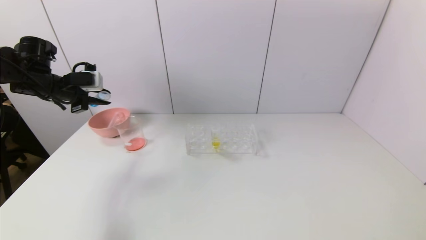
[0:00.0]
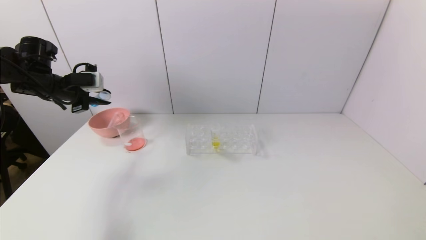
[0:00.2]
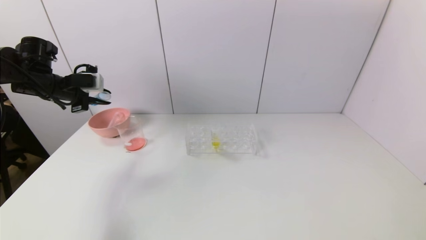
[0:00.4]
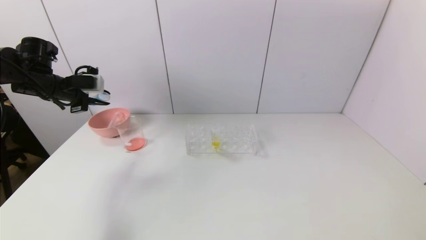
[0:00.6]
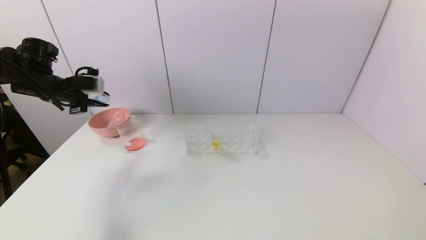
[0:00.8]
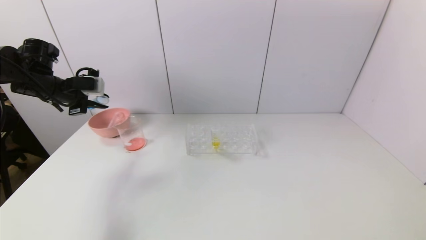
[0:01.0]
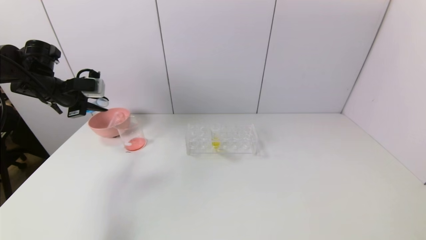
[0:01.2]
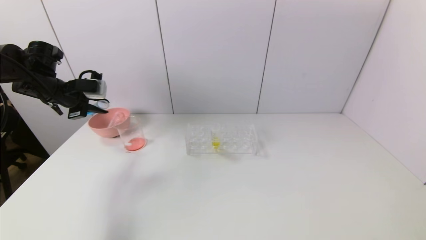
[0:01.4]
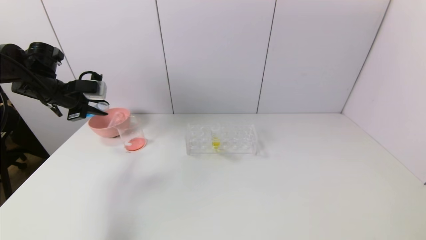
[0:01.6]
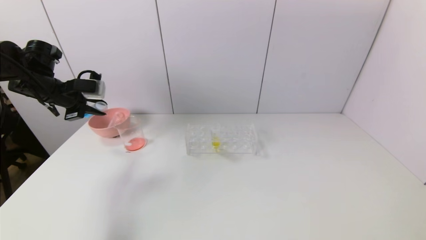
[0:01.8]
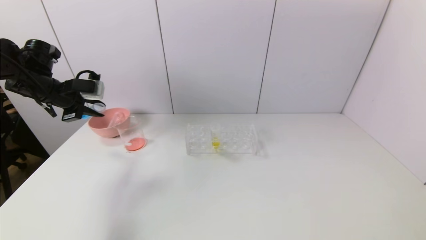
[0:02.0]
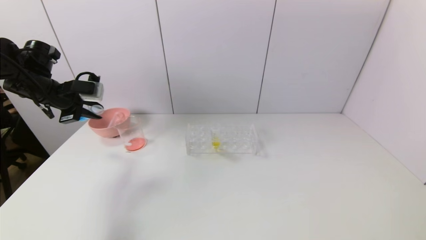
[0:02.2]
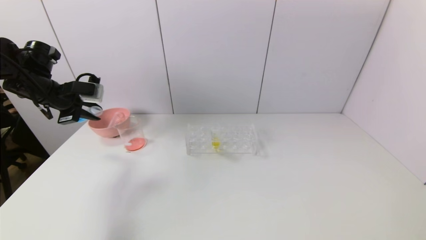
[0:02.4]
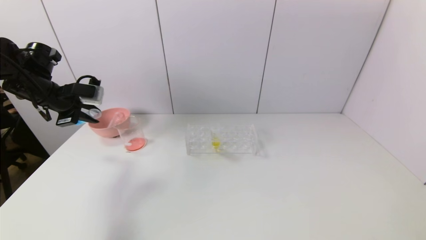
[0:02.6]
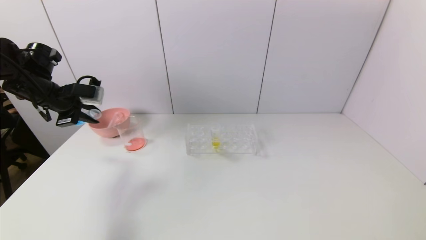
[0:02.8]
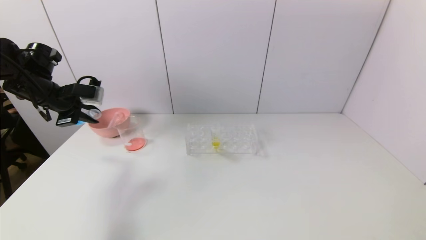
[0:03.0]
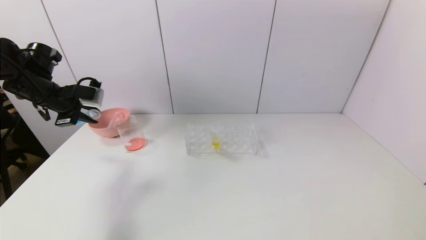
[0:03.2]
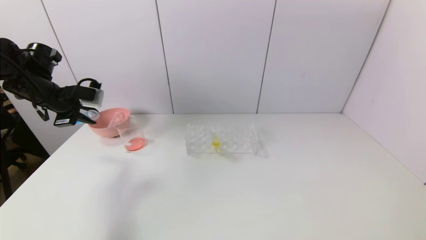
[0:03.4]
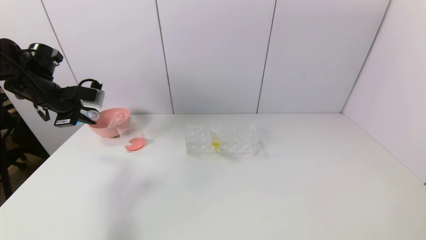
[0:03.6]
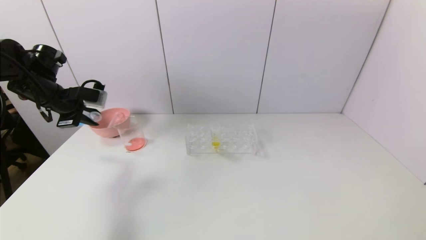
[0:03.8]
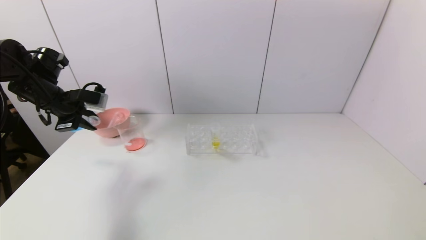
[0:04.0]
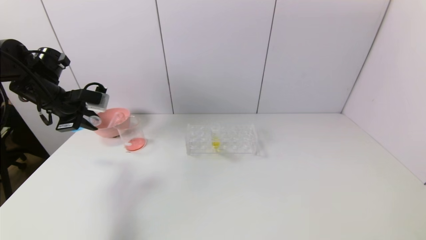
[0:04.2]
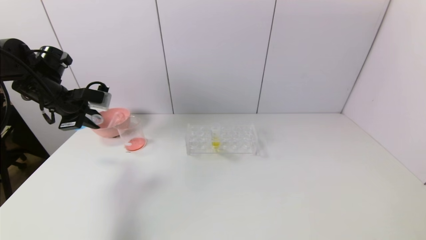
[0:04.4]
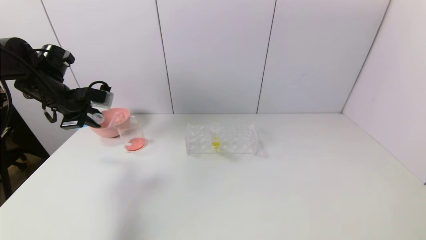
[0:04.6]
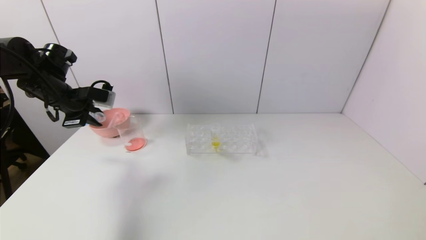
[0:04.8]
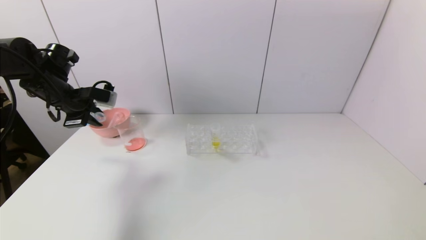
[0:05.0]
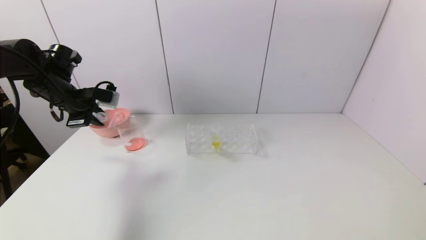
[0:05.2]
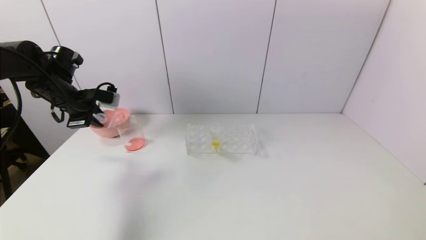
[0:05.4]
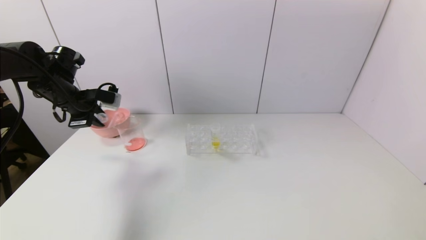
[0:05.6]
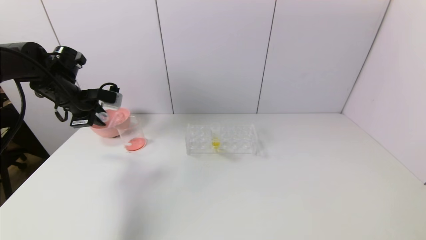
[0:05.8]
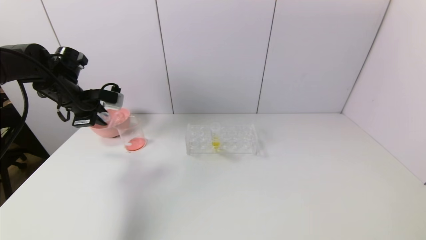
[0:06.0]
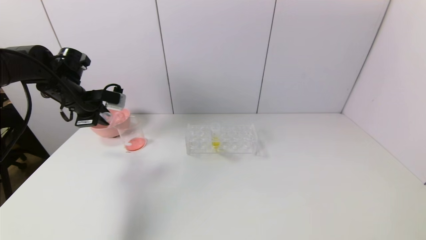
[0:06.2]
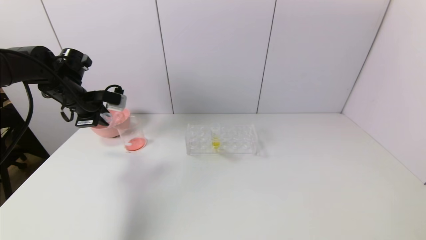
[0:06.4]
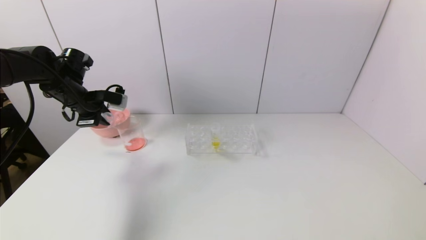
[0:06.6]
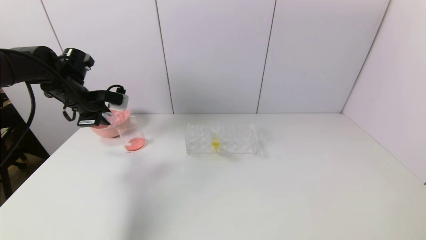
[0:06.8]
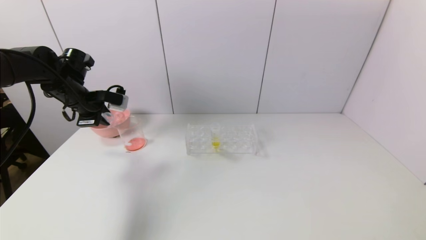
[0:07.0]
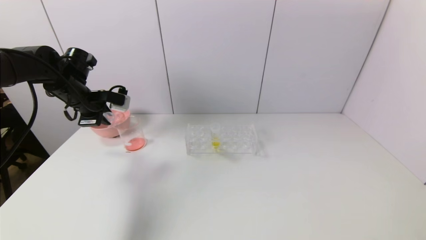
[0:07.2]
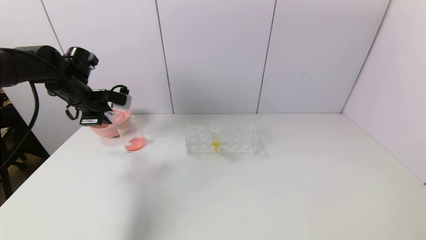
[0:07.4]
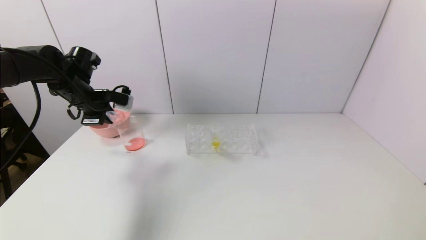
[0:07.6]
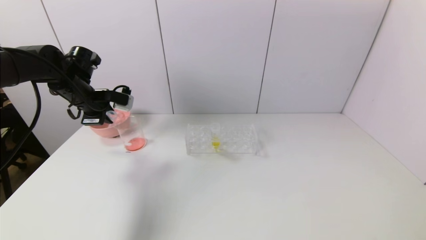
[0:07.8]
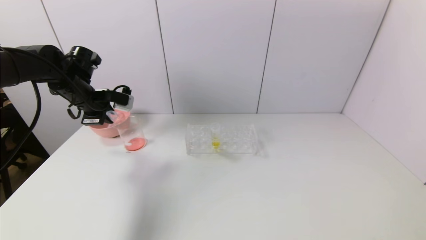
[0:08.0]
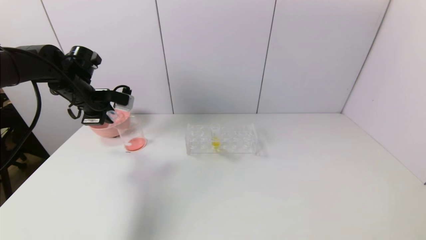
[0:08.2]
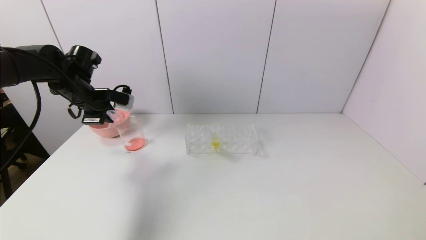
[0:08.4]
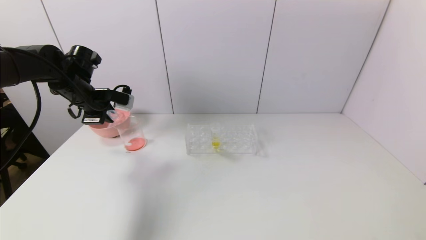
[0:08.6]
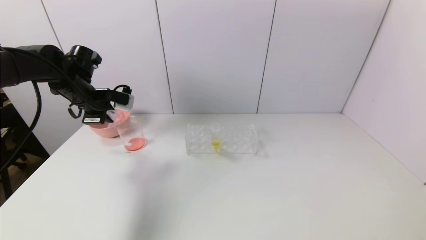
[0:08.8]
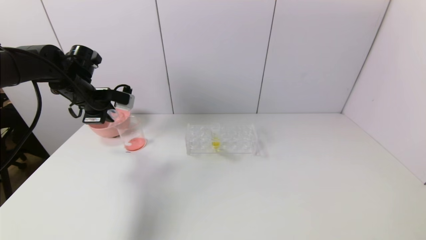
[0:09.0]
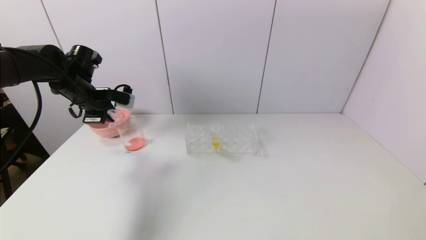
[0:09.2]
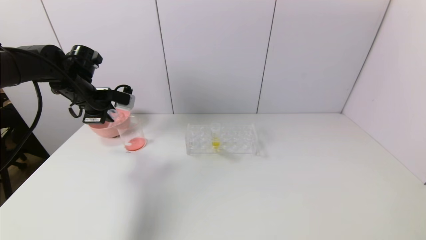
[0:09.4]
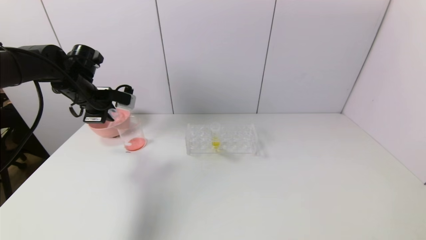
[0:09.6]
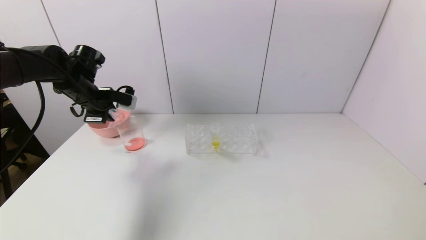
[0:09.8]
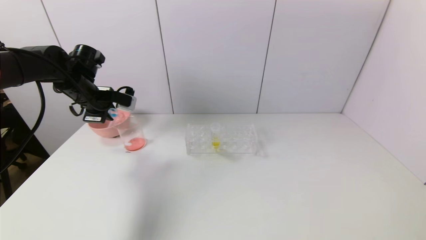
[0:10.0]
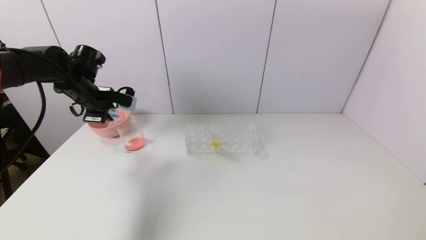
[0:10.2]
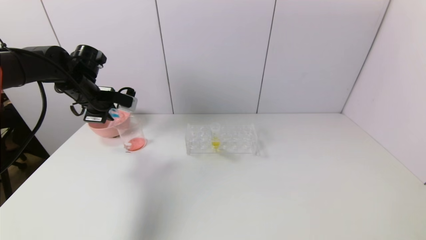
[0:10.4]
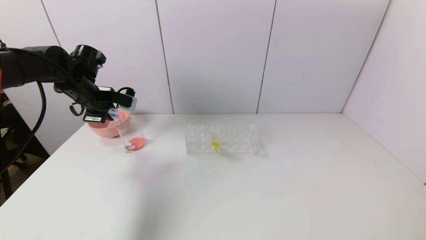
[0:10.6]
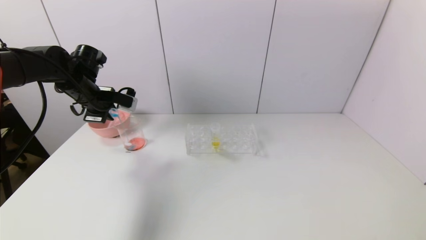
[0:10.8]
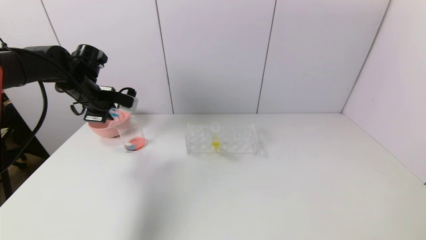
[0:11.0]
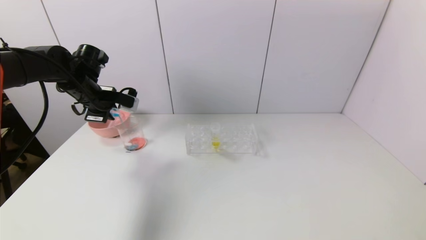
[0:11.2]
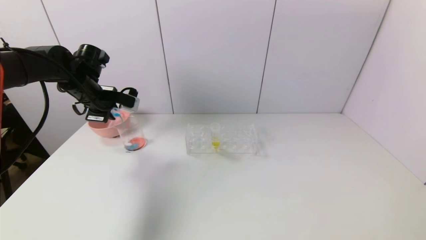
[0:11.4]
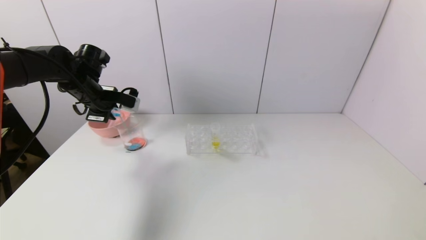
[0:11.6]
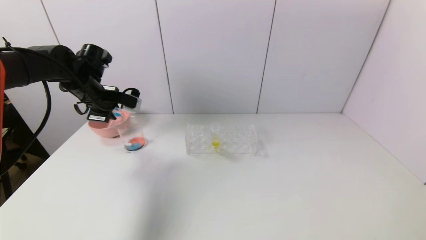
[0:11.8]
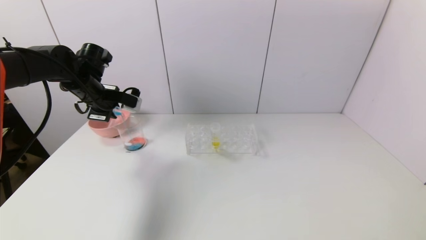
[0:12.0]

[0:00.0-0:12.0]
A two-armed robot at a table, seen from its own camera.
Task of the whole recording: pick up the test tube with red pigment and the test tube with blue pigment by grippers and pour them into the container.
0:00.0 to 0:03.0: The grippers stay close to where they were, moving slightly.
0:03.0 to 0:06.0: The grippers move only a little.
0:06.0 to 0:07.6: The grippers make only small movements.
0:07.6 to 0:09.0: The two grippers keep their place.
0:09.0 to 0:12.0: There are only small adjustments of the grippers.

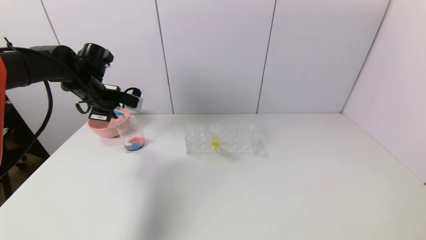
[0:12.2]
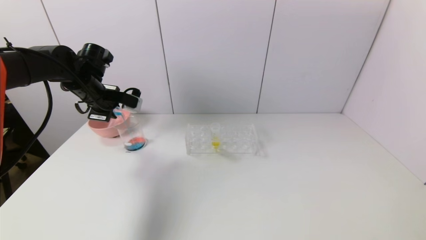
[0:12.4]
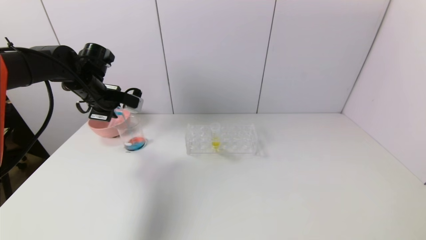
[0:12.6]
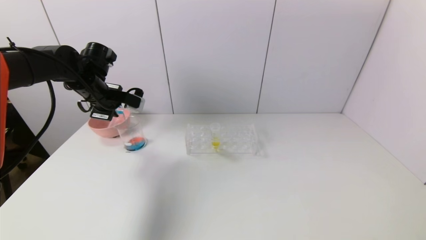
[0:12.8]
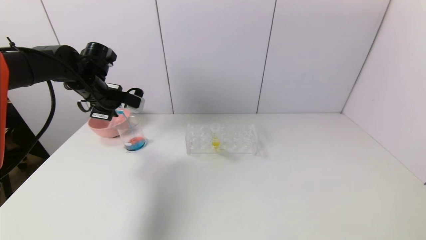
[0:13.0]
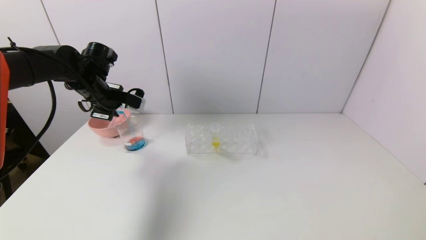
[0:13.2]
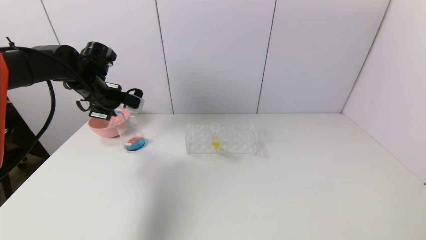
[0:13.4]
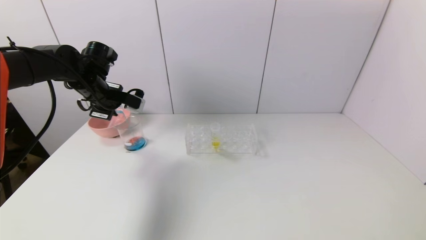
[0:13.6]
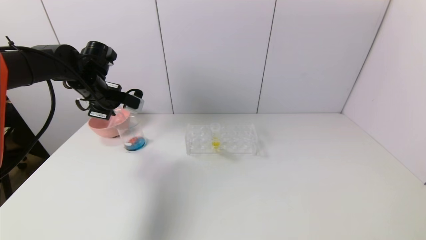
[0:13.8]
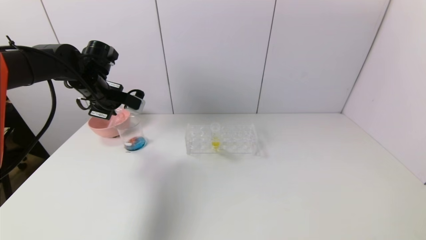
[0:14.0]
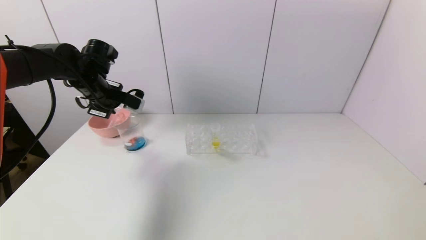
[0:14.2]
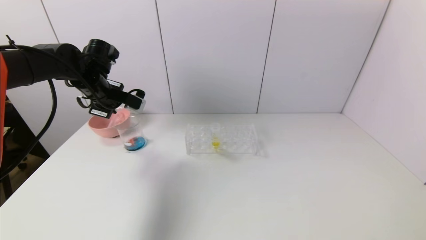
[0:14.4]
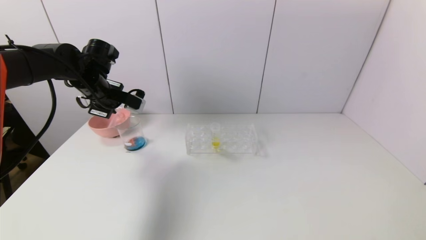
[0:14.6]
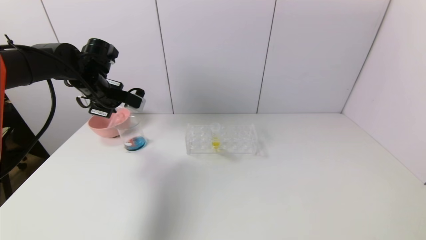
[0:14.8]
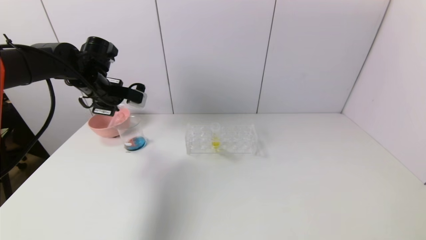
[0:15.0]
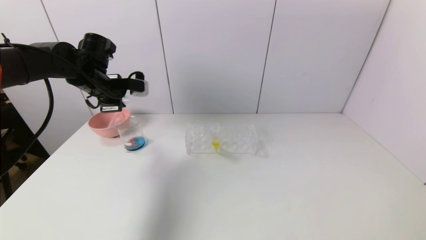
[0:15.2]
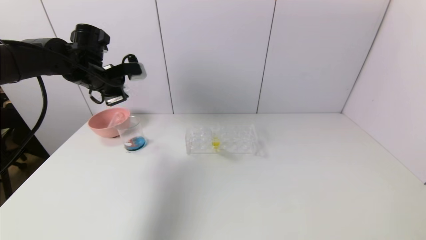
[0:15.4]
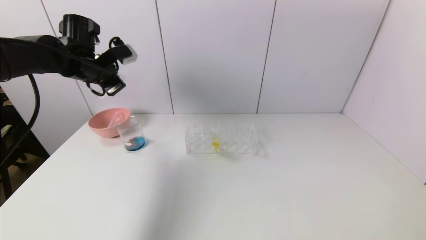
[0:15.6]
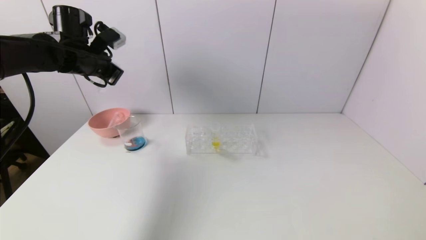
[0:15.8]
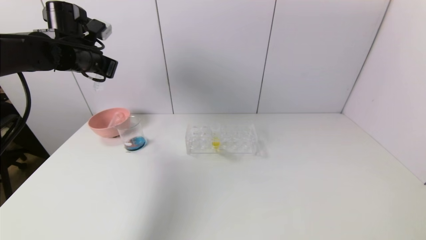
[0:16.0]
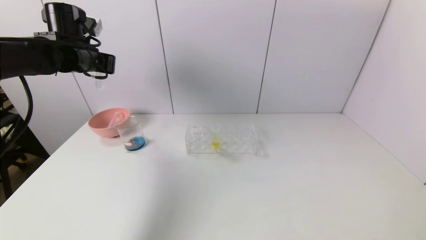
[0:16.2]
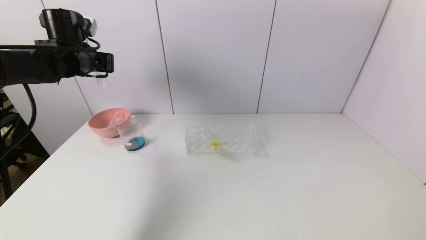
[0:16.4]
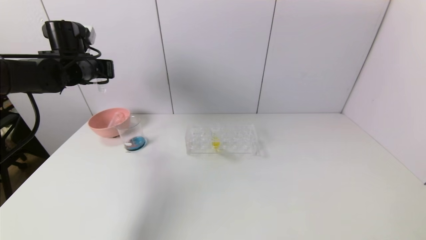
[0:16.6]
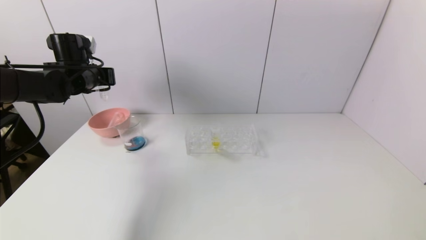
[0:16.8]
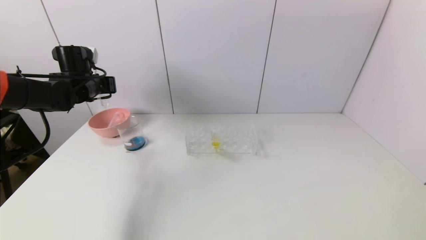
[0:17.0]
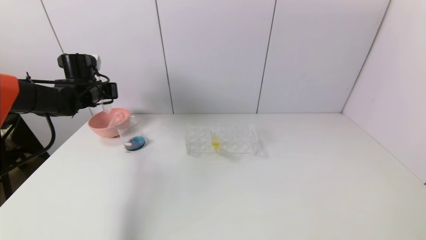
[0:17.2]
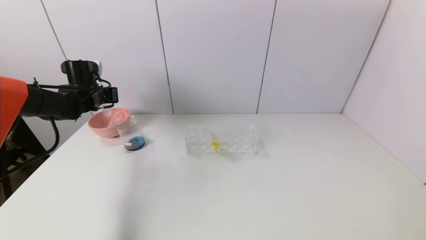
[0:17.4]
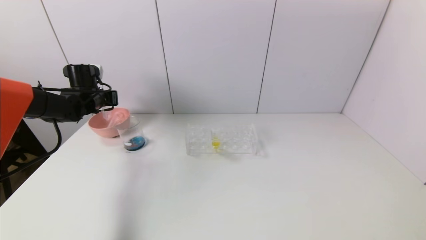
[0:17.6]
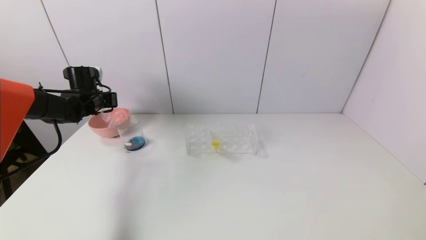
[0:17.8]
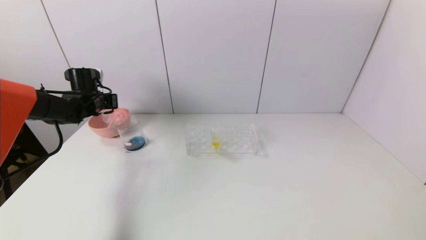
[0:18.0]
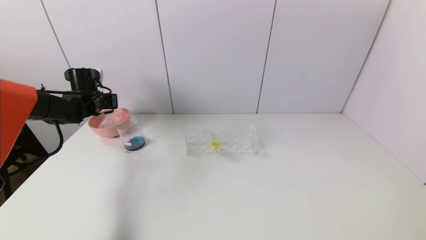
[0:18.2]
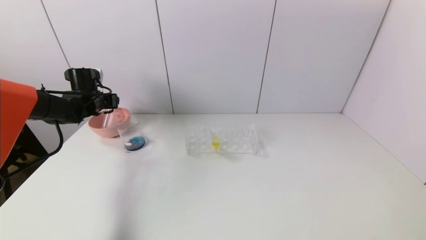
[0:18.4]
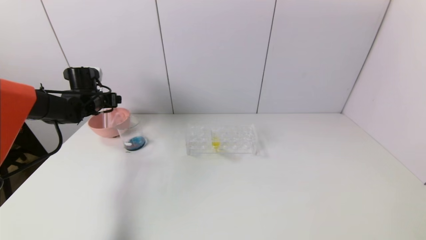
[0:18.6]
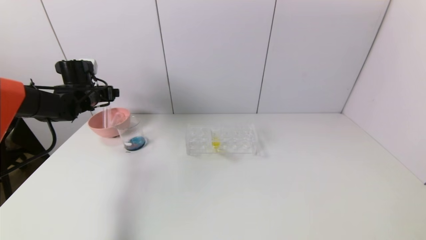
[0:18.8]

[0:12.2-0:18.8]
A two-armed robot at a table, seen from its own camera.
Task of the whole recording: pick up the test tube with red pigment and the test tube with blue pigment by grippers and pour them into the container.
Step, 0:12.2 to 0:15.6: Pour the blue reagent into the graduated cylinder with the left gripper.
0:12.2 to 0:13.8: There are only small adjustments of the grippers.
0:15.4 to 0:17.2: The left gripper travels downward and to the left by approximately 10 cm.
0:17.2 to 0:18.8: The left gripper opens its fingers.
